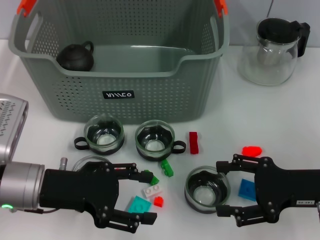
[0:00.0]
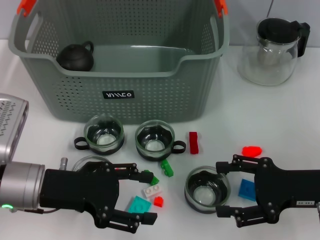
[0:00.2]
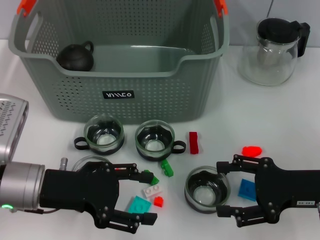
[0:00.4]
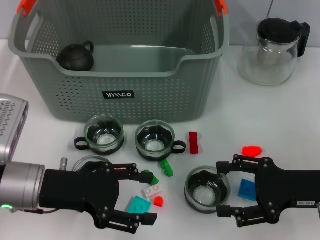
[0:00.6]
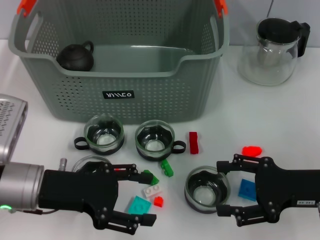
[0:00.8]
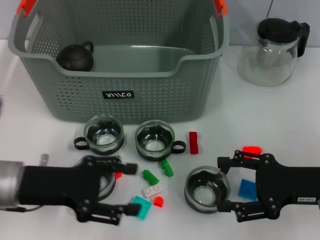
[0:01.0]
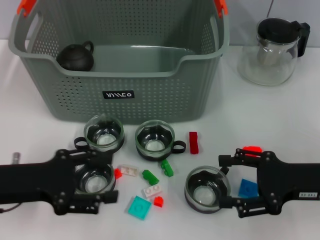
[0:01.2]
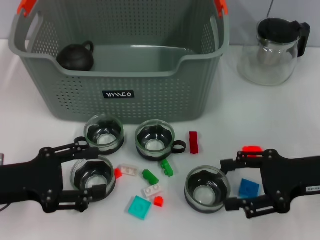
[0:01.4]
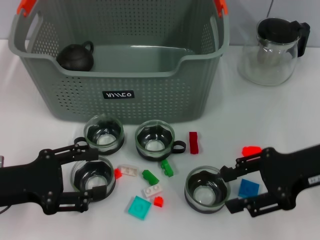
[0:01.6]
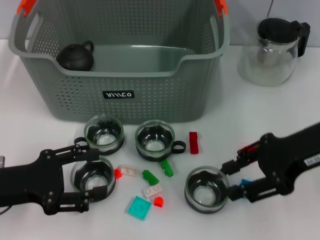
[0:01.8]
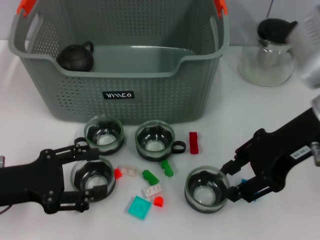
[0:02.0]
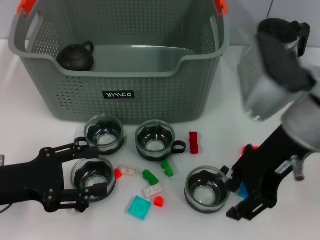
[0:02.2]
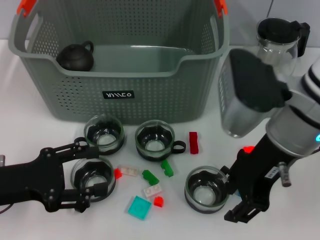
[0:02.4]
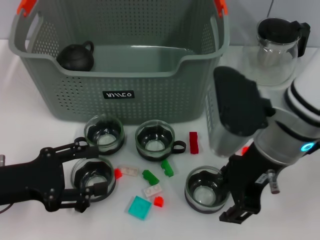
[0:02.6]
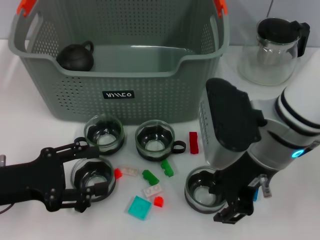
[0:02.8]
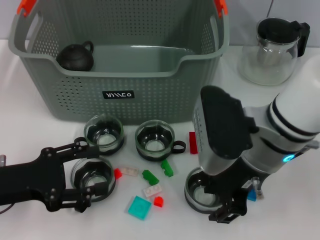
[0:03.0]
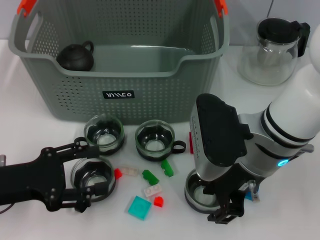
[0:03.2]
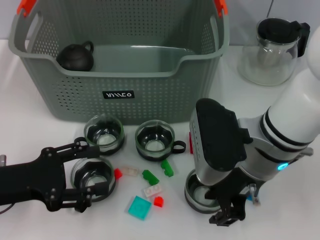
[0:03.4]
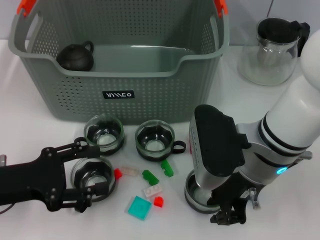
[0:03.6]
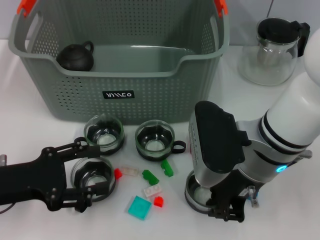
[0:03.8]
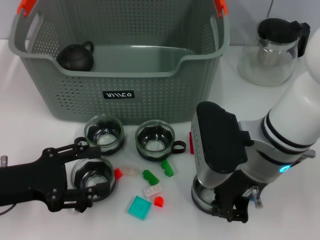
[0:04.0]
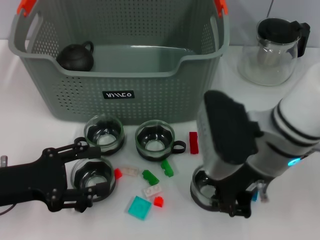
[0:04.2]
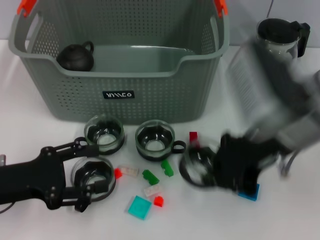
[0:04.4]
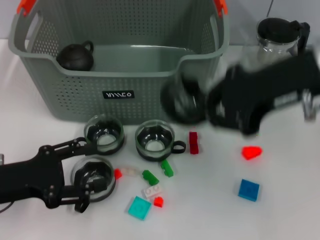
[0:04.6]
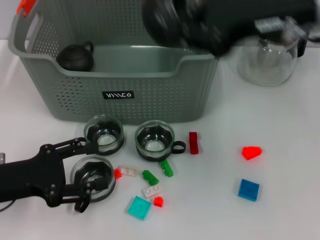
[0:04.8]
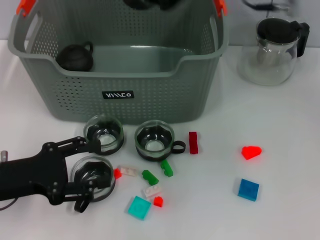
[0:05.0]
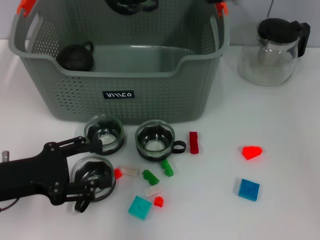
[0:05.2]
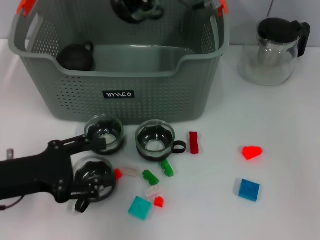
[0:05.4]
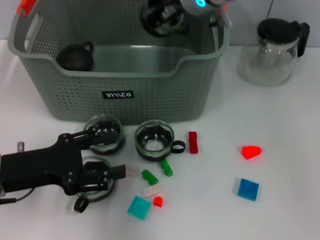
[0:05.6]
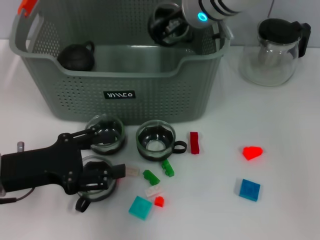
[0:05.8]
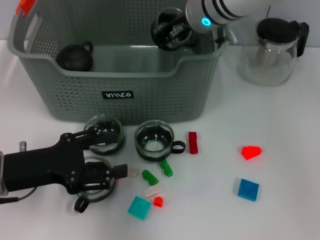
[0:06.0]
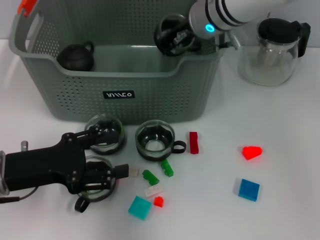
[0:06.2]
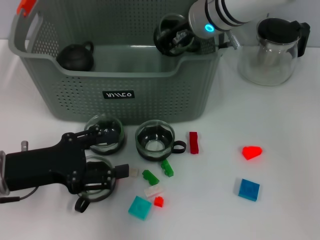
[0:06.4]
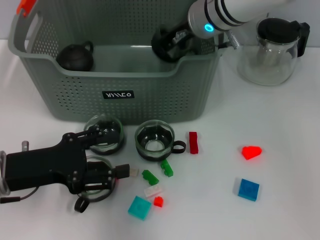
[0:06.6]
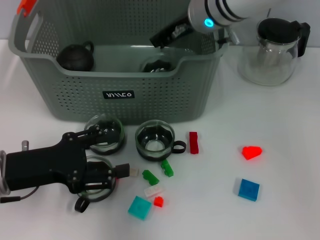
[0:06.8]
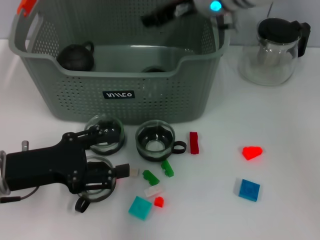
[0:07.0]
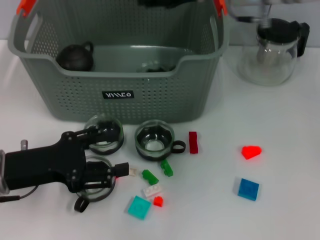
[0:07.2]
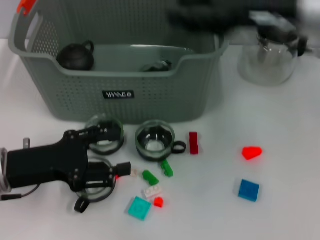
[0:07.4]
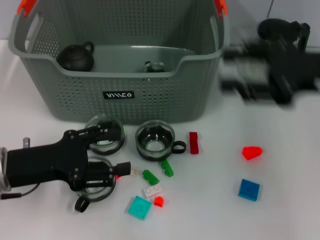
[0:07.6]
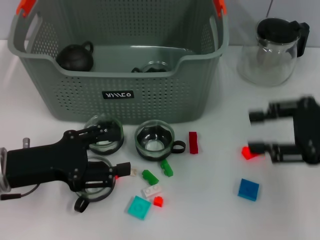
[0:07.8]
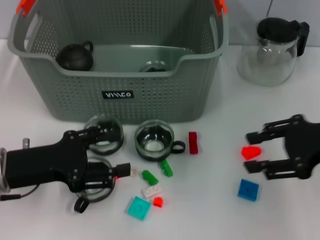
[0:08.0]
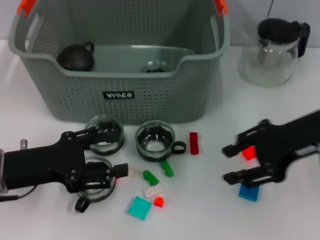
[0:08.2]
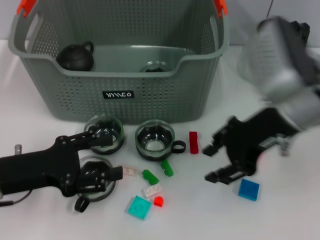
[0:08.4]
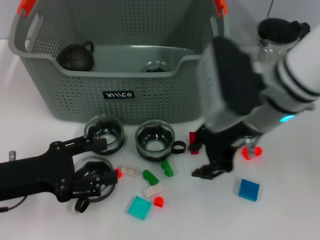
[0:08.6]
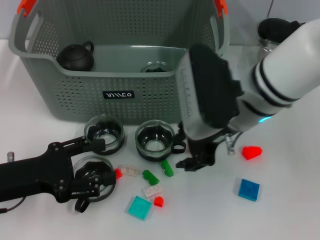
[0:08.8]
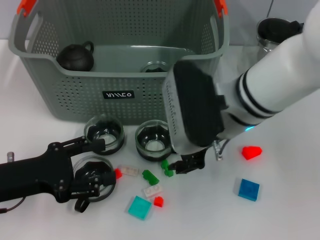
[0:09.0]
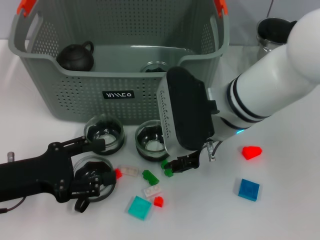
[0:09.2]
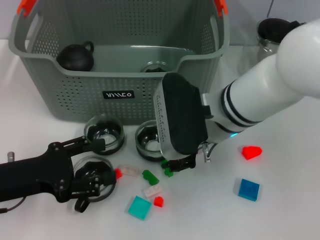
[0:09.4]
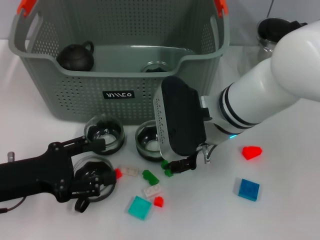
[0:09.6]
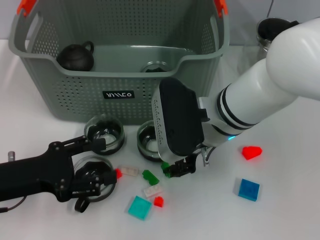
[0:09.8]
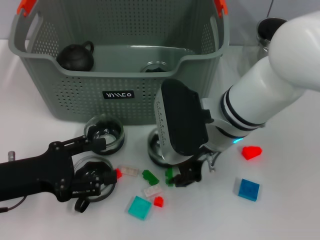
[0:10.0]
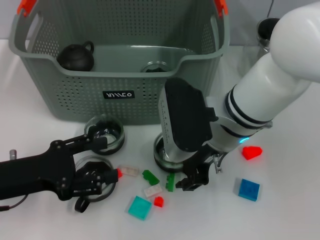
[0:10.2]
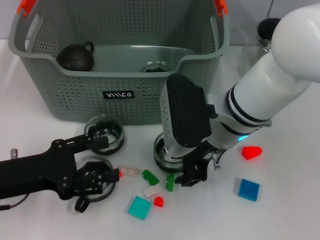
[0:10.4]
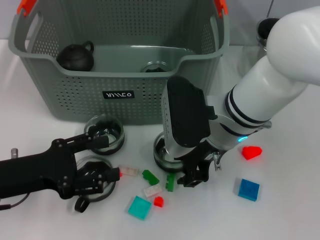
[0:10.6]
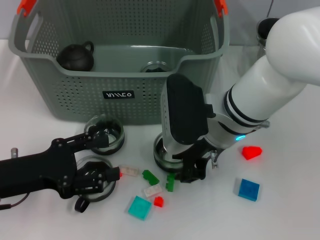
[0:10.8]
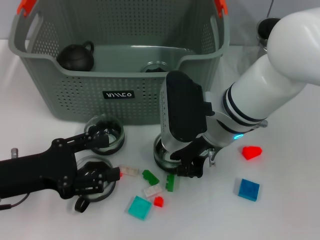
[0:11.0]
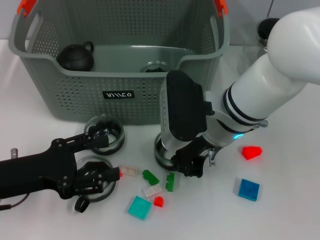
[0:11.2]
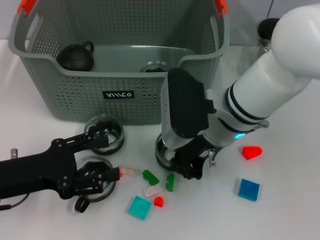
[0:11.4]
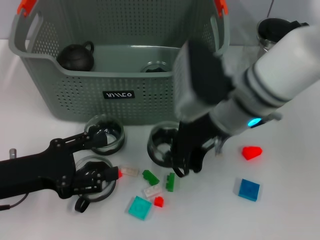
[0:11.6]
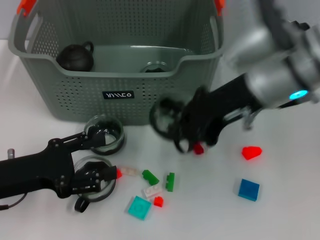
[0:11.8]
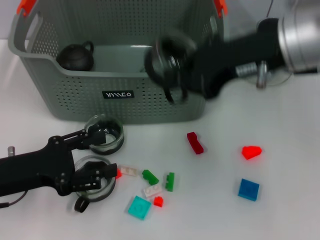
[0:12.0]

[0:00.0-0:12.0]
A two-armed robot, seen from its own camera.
Task of the whole recording: pick up the teacup on the table and place it into the storage bin, pick up the block on the table and place it into the storage bin.
Step, 0.0 to 3.8 s: Grasp the cup with right gripper.
Step, 4.0 to 7.0 s: Place the cup in the storage box with right gripper.
Step, 7.4 to 11.2 s: Grasp the cup with right gripper.
0.0 to 1.6 s: The left gripper travels to the left by roughly 5 cm; the right gripper goes approximately 5 cm upward.
1.6 to 3.0 s: The right gripper goes about 15 cm to the left.
3.0 to 4.4 s: The right gripper heads upward, covering approximately 5 cm, and closes its fingers.
4.4 to 6.0 s: The right gripper goes about 20 cm forward and to the left.
6.0 to 7.6 s: The right gripper heads to the right and backward, covering about 25 cm, and opens.
7.6 to 9.0 s: The right gripper goes roughly 20 cm to the left.
9.0 to 10.4 s: The grippers make only small movements.
10.4 to 12.0 s: The right gripper is displaced upward and to the right by some 15 cm, and closes up.

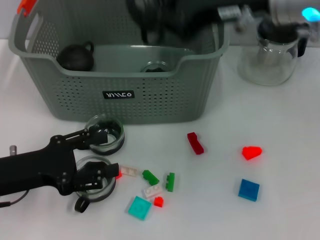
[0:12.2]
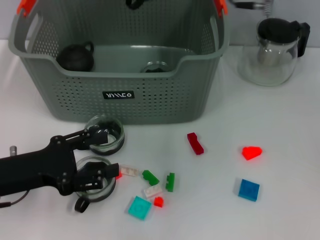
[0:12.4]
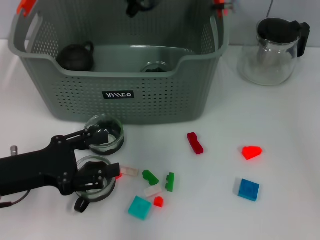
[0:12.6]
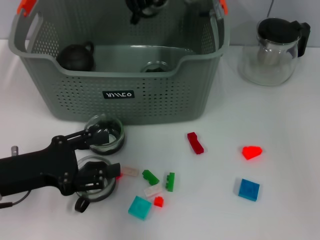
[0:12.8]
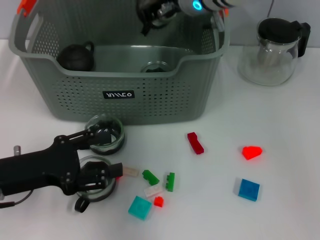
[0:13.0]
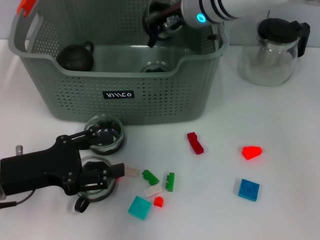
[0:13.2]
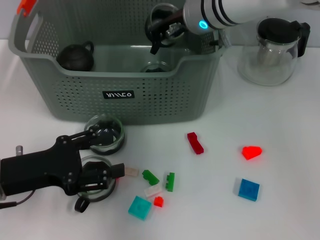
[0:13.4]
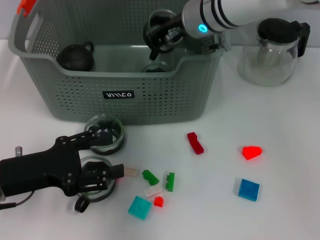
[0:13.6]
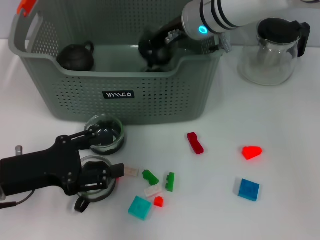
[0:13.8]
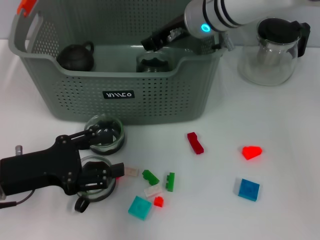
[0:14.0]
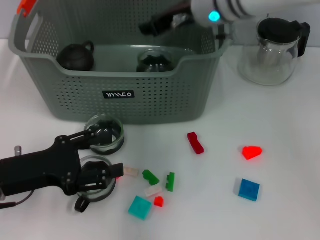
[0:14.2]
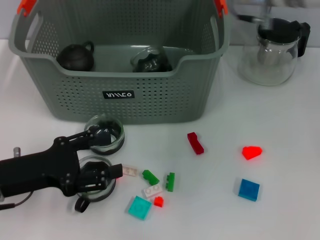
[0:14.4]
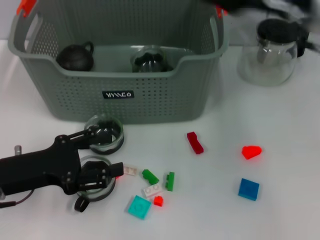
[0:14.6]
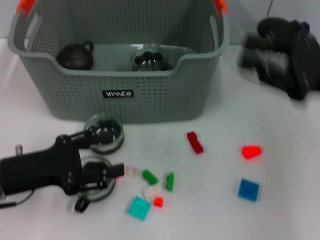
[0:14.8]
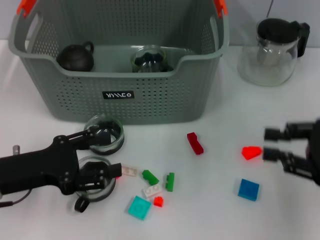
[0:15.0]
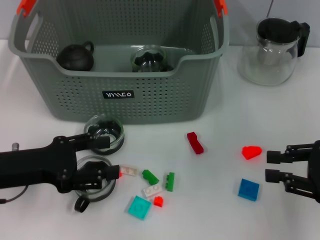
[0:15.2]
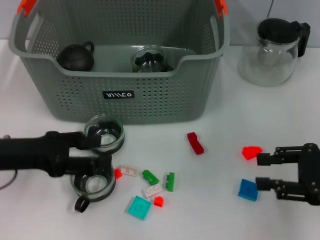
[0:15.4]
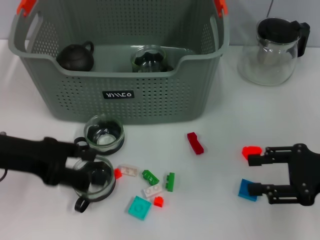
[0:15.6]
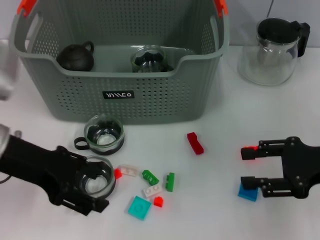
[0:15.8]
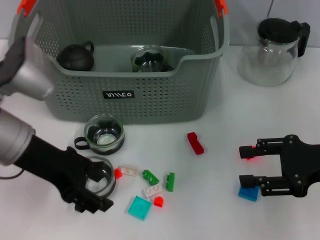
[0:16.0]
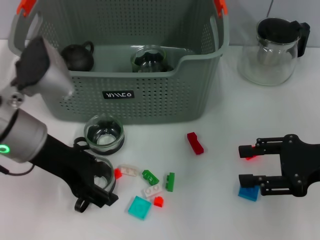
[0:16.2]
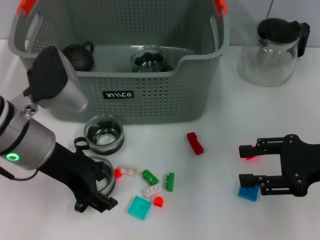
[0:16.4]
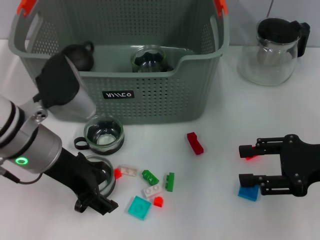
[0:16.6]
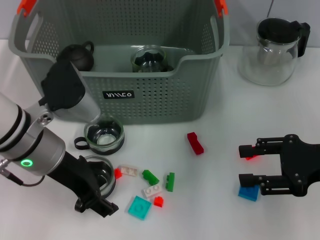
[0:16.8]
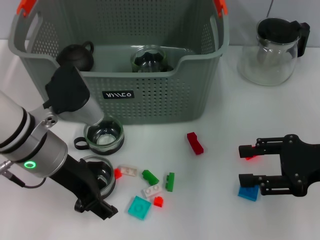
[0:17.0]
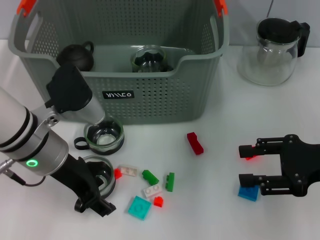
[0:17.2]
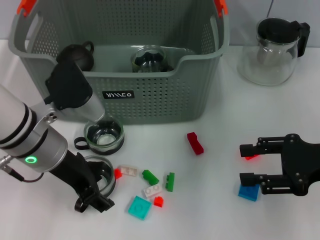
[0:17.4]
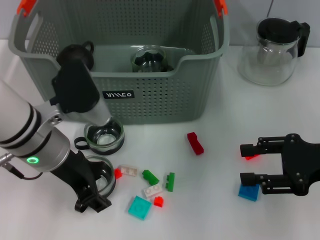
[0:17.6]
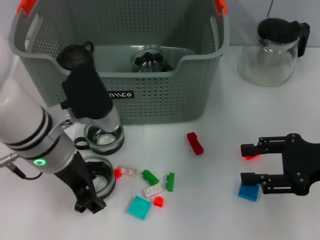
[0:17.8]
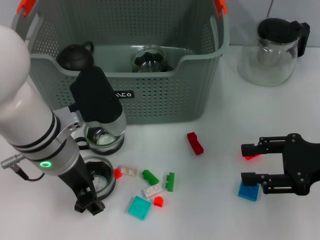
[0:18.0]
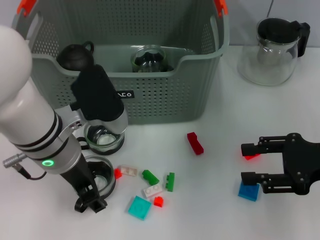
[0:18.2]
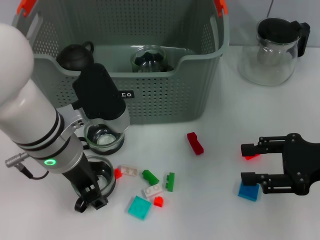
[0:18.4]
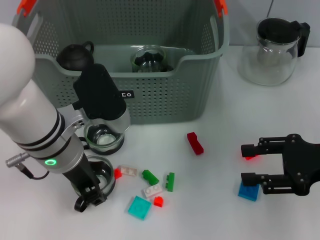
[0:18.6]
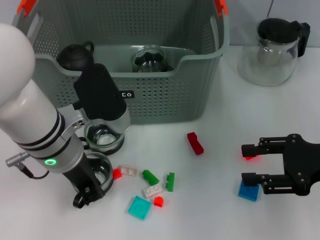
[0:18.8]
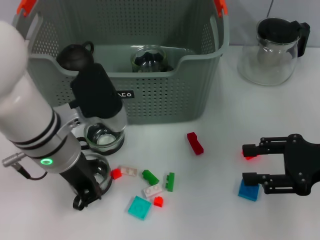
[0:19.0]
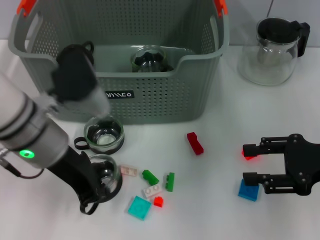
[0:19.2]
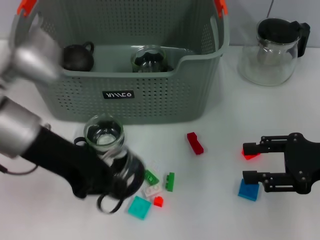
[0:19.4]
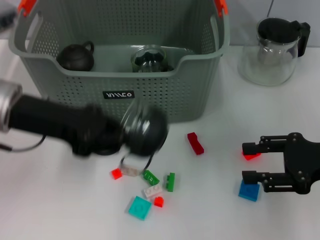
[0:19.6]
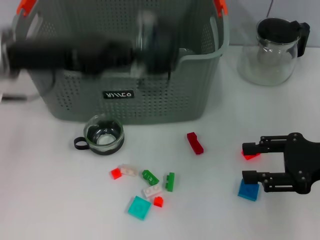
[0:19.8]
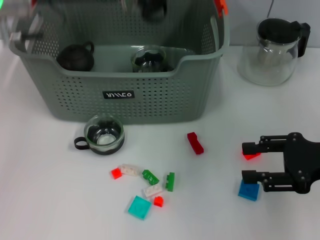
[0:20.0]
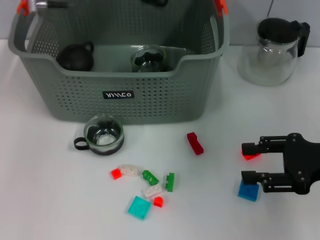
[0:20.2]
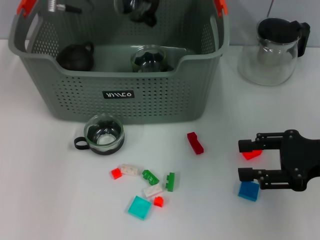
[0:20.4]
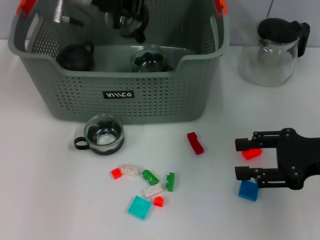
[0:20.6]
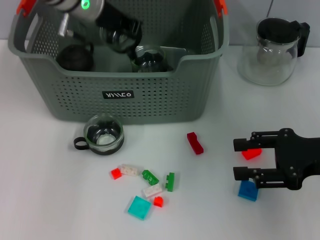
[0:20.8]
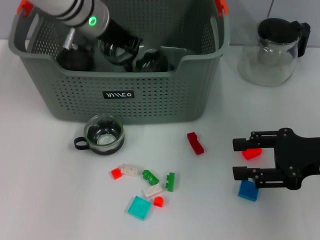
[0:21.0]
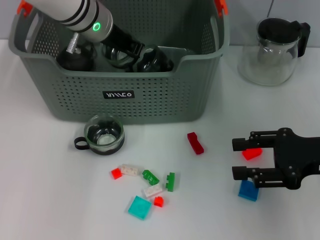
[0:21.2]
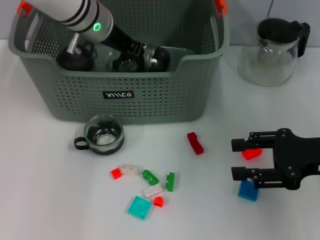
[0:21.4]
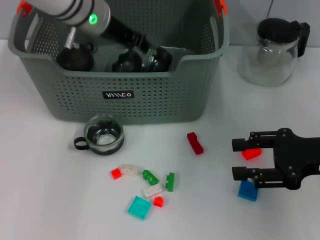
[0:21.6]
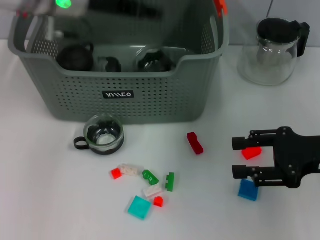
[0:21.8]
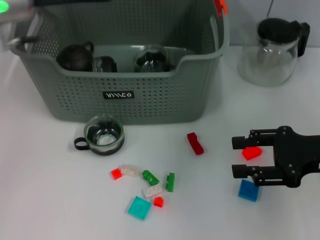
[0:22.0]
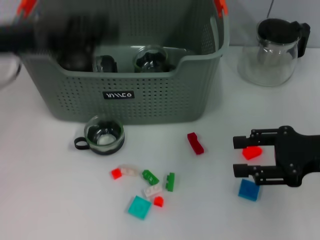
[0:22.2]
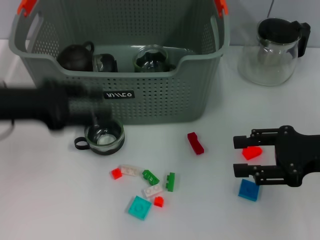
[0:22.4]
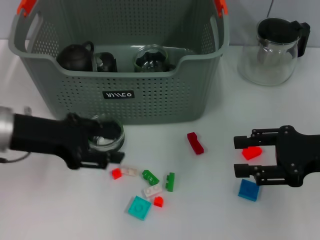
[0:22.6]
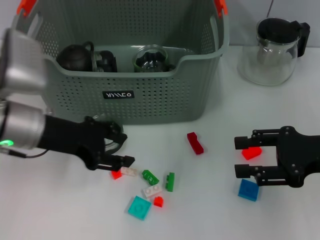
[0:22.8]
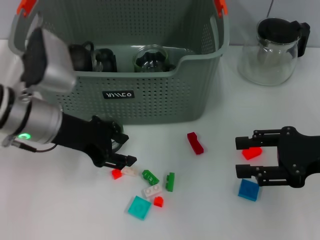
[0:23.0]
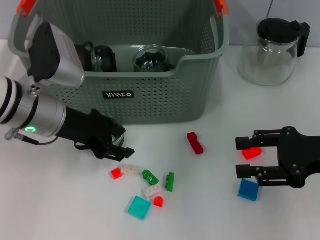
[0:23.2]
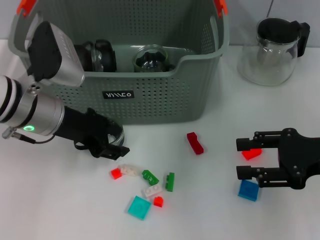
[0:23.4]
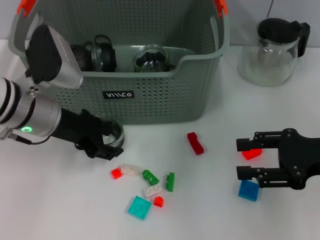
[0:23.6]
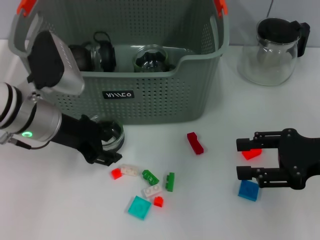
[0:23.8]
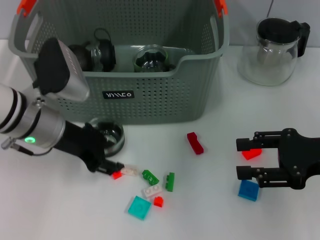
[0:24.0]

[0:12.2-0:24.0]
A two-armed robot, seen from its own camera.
Task of the whole recording: pick up the teacup on the table and place it into the storage bin, pick up the block on the table and place it into the storage bin.
Step, 12.2 to 14.4 s: Place the cup in the storage box with right gripper.
Step, 14.6 to 18.8 s: Grasp the cup with left gripper.
Step, 19.0 to 21.8 s: Place the cup in the storage box with left gripper.
12.2 to 13.6 s: The right gripper heads forward, downward and to the left, covering about 15 cm.
13.6 to 15.2 s: The right gripper travels to the right and backward by roughly 35 cm, and opens its fingers.
15.2 to 16.6 s: The left gripper goes some 10 cm to the right and upward.
16.6 to 18.2 s: The grippers make only small movements.
18.2 to 19.6 s: The left gripper shifts about 10 cm to the left, and closes its fingers.
19.6 to 21.0 s: The left gripper shifts approximately 20 cm forward and to the right.
21.0 to 22.6 s: The left gripper heads backward and to the left, covering some 20 cm, and opens its fingers.
22.6 to 24.0 s: The left gripper goes roughly 5 cm to the right.
